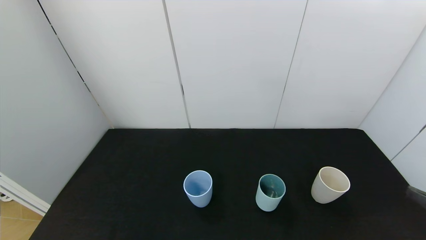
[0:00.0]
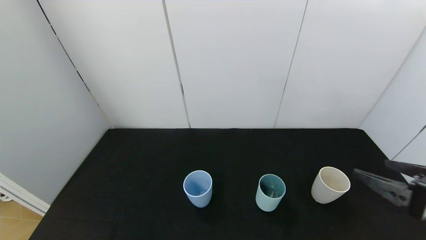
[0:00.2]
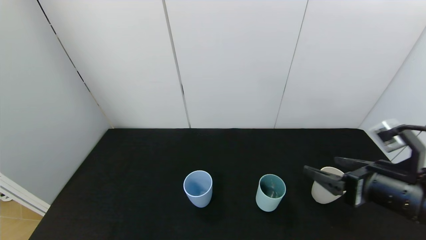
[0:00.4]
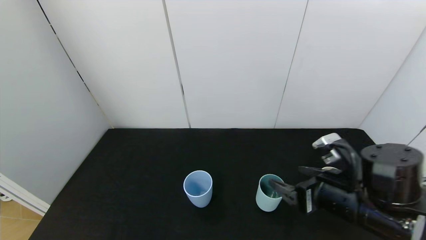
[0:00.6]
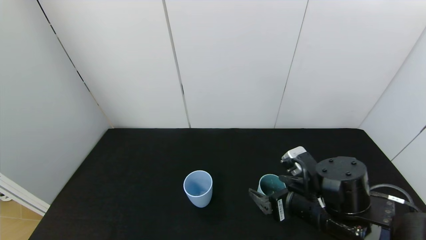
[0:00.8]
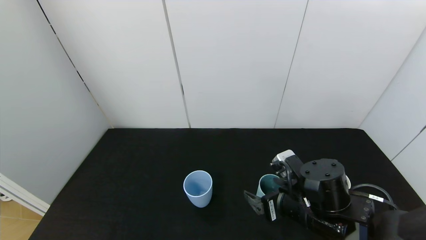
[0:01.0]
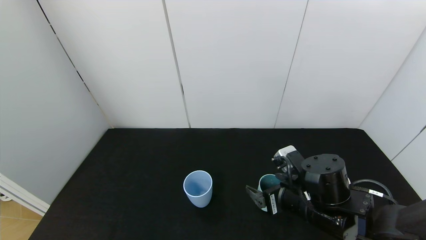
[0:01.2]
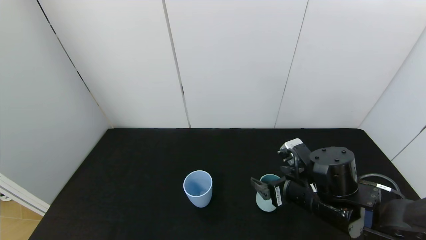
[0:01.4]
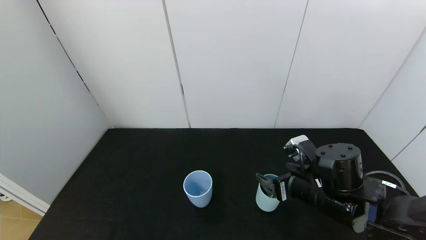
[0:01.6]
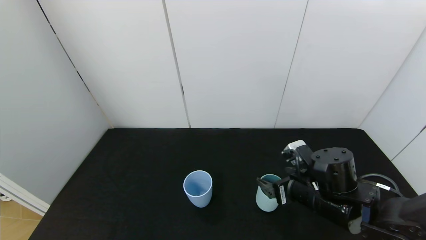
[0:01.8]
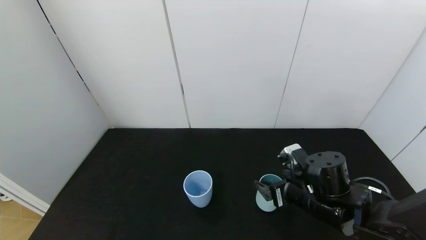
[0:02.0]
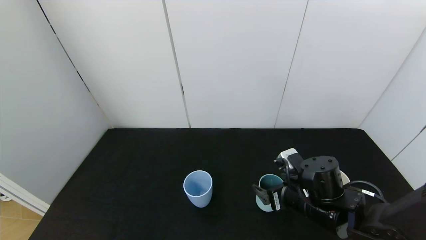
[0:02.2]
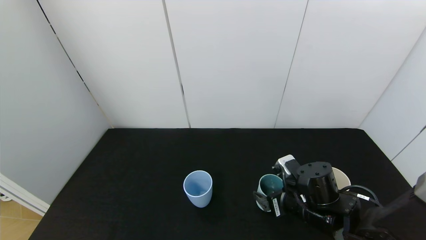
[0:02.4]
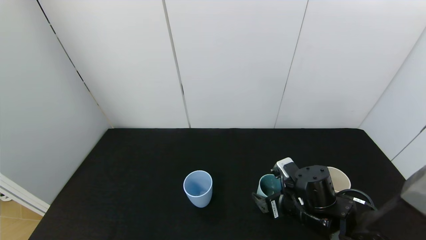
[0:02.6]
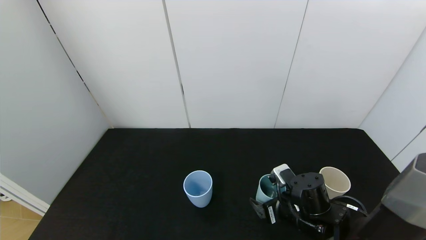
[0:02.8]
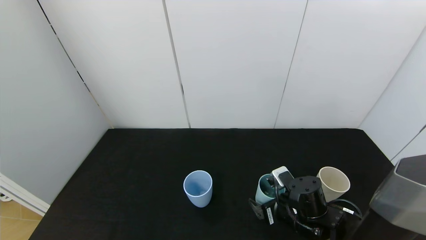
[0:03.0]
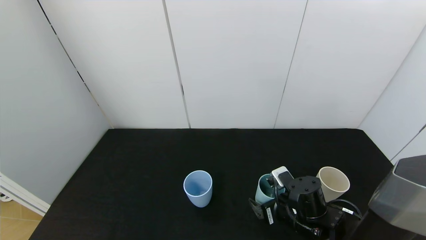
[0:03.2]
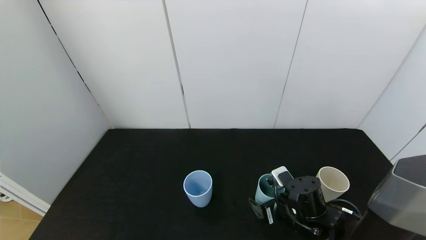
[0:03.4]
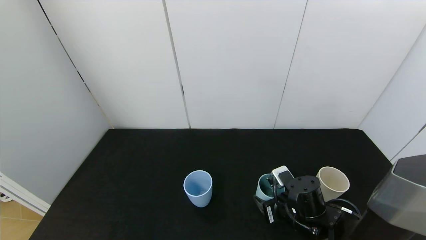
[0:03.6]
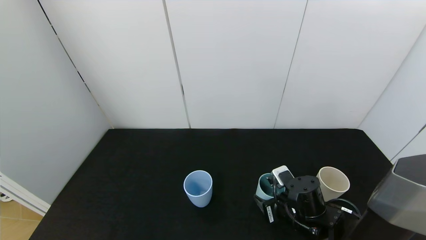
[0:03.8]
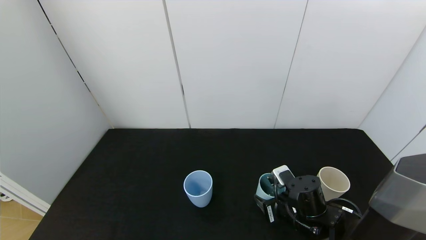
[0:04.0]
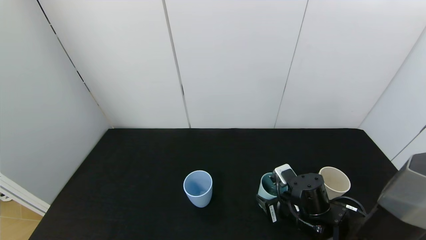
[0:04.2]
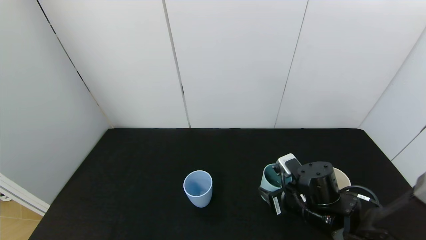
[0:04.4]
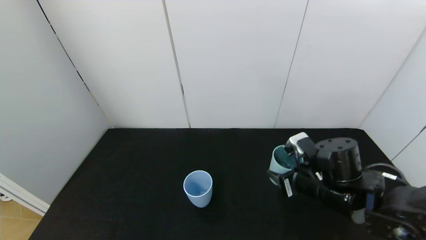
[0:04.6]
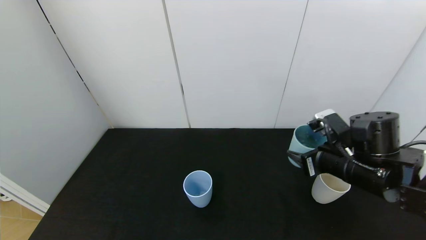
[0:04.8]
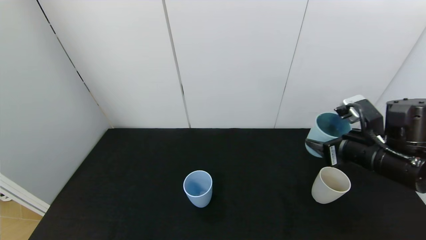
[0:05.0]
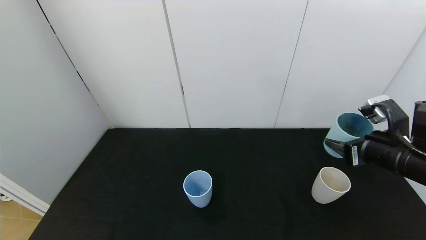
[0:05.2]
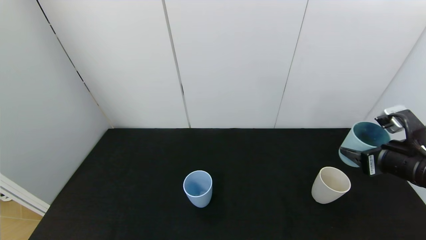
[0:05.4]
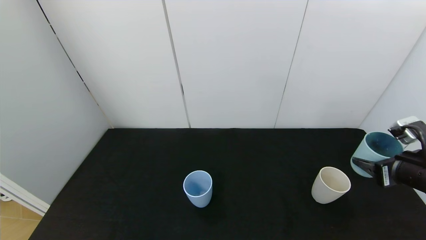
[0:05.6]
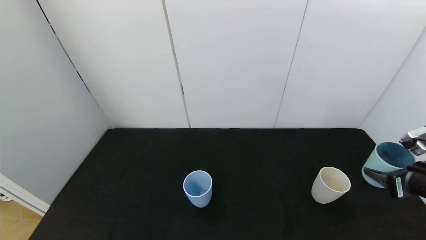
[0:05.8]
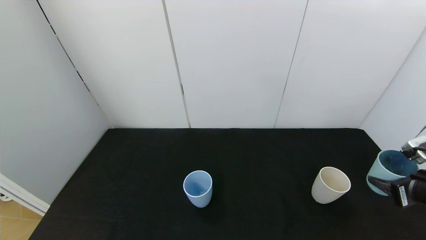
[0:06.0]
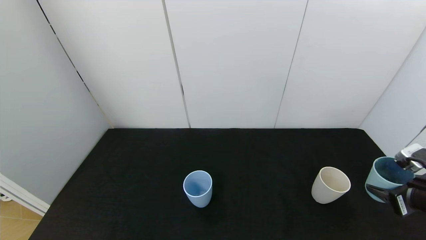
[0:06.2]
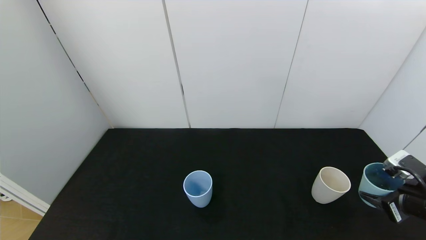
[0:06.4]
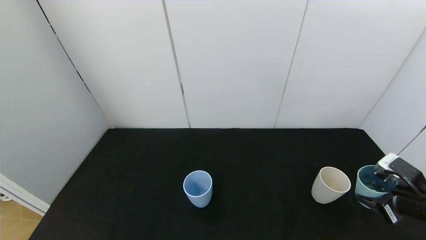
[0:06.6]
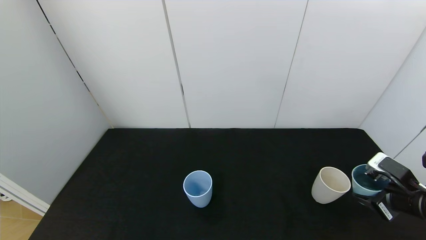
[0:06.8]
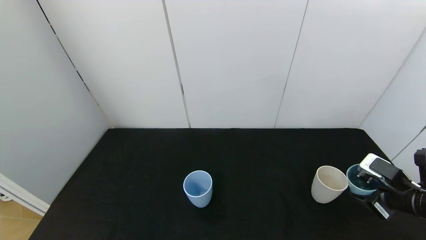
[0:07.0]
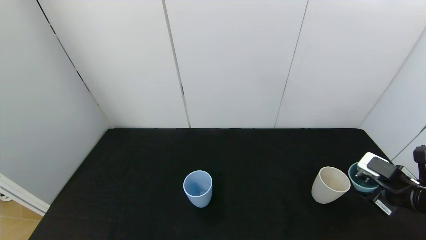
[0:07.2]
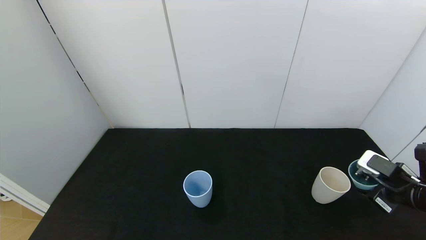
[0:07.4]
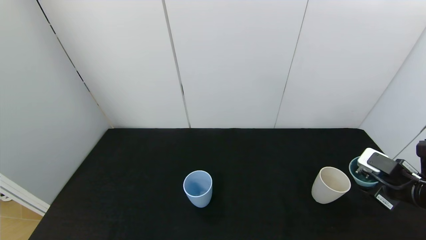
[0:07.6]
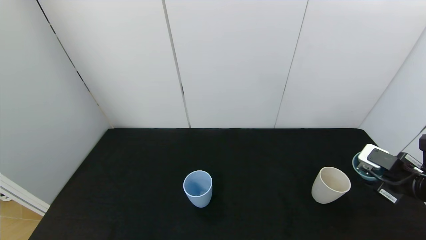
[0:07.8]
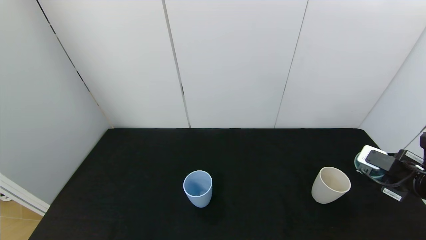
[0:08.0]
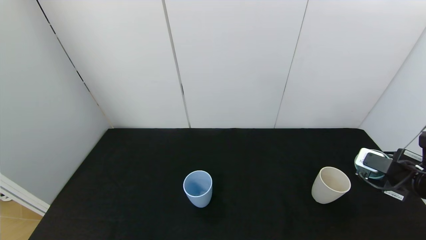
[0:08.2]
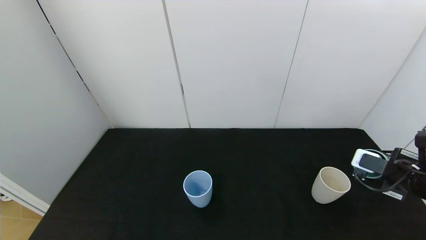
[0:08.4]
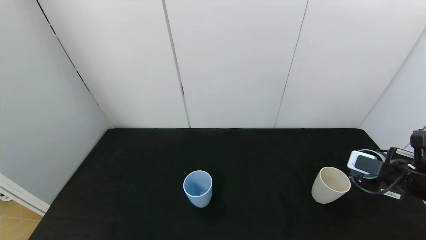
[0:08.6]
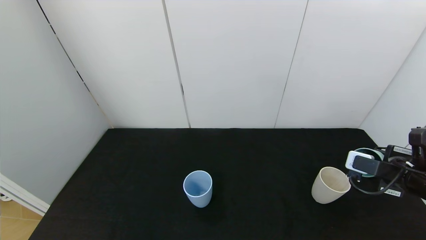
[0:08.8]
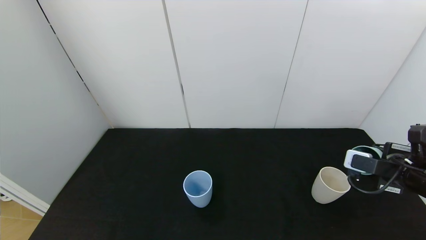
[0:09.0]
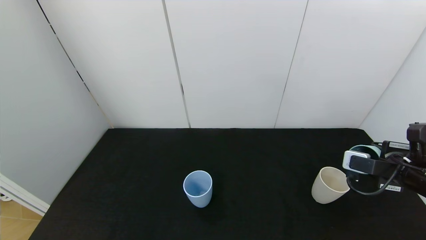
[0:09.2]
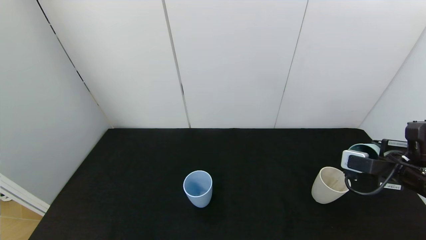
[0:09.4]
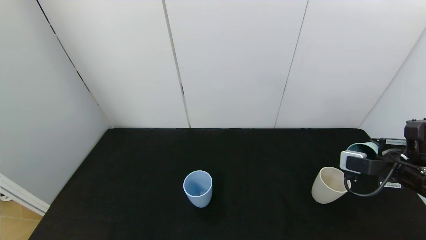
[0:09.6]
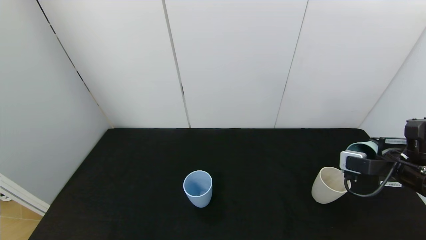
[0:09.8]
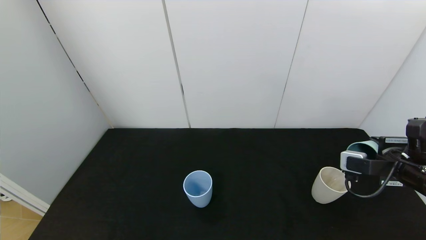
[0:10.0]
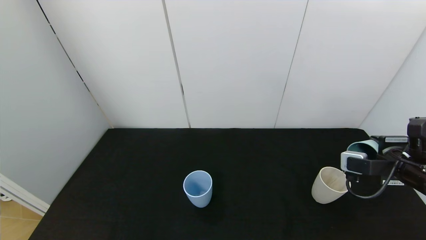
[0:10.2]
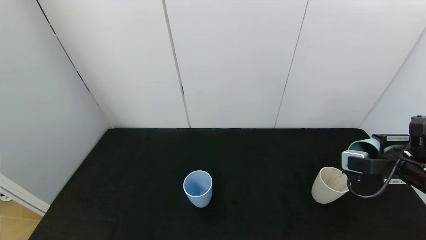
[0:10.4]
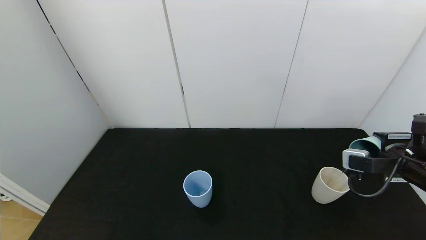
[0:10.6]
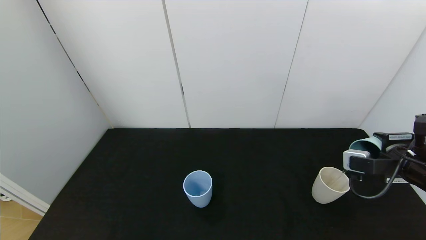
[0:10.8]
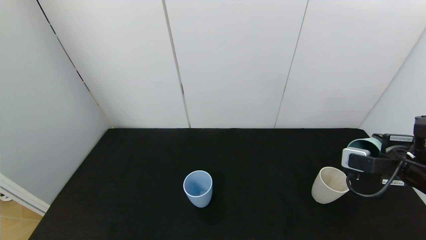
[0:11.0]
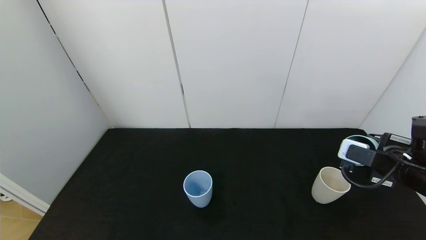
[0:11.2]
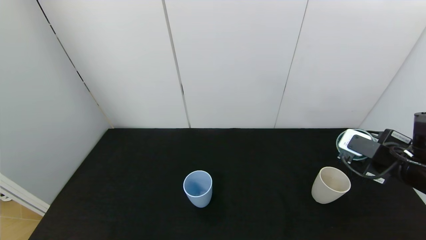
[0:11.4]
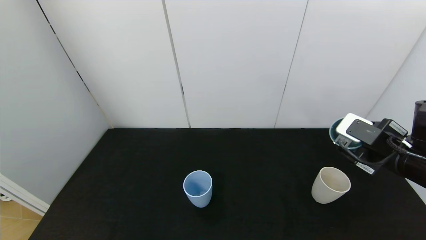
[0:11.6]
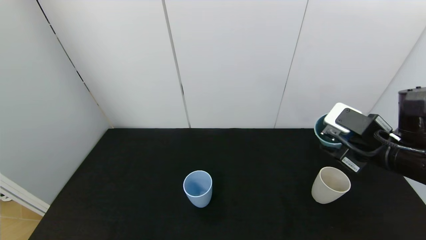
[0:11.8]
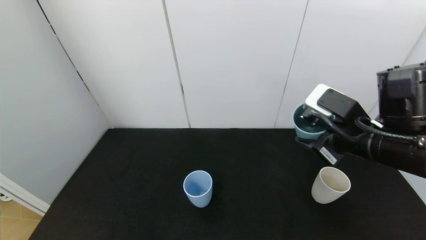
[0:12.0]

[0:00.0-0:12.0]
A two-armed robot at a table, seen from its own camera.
Task of the whole recording: use the gripper to pour the water into the other two cups on black table.
Step, 0:00.0 to 0:04.2: Grasp the green cup with the right gripper.
Step, 0:04.4 to 0:11.8: Pour water from green cup to white cup with the right gripper.
0:00.0 to 0:01.6: The right gripper is displaced to the left, forward and downward by about 25 cm.
0:01.6 to 0:03.0: The right gripper shifts some 10 cm downward.
0:03.0 to 0:04.4: The right gripper travels upward by roughly 5 cm, and closes.
0:04.4 to 0:06.0: The right gripper is displaced to the right by some 20 cm.
0:09.0 to 0:10.4: The grippers stay close to where they were, moving slightly.
0:10.4 to 0:12.0: The right gripper heads to the left and upward, covering some 15 cm.

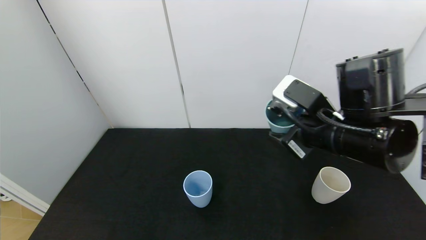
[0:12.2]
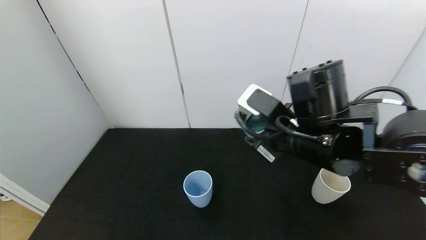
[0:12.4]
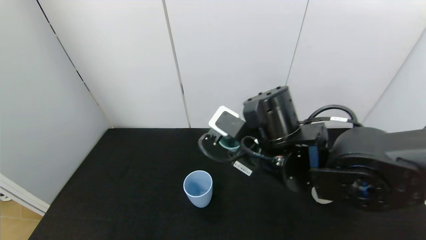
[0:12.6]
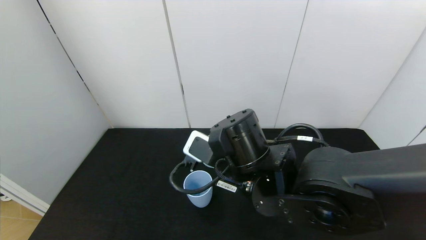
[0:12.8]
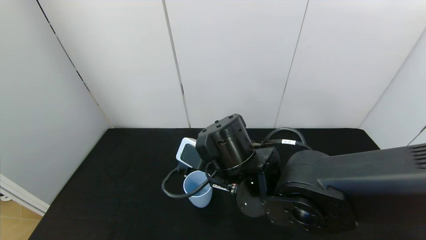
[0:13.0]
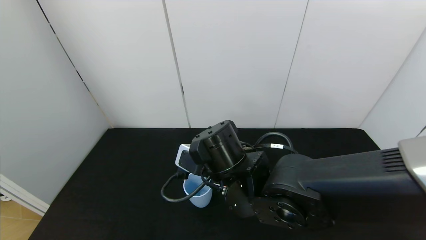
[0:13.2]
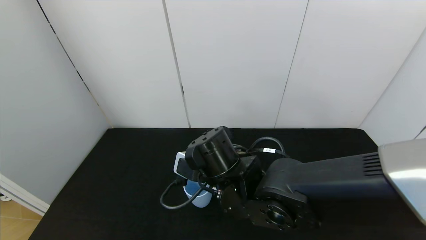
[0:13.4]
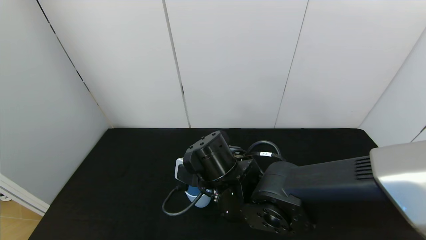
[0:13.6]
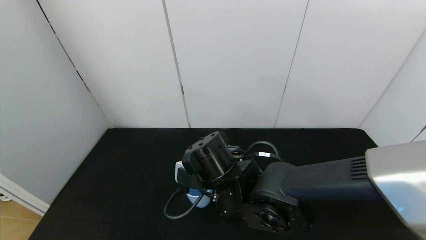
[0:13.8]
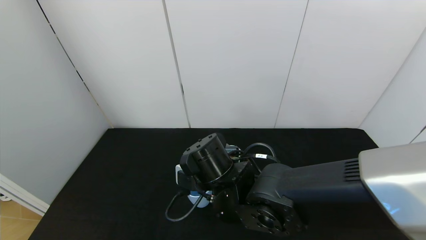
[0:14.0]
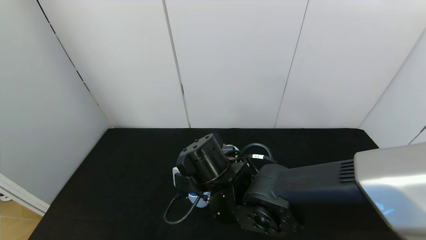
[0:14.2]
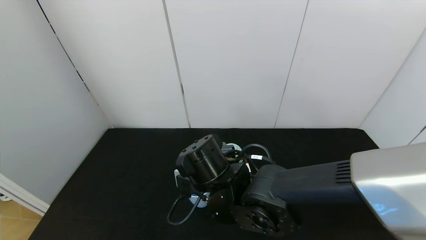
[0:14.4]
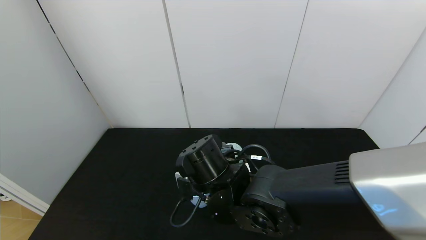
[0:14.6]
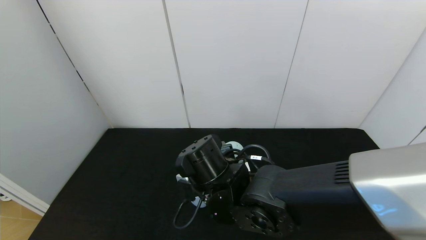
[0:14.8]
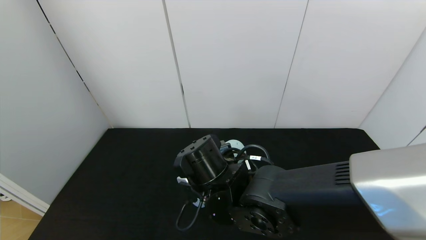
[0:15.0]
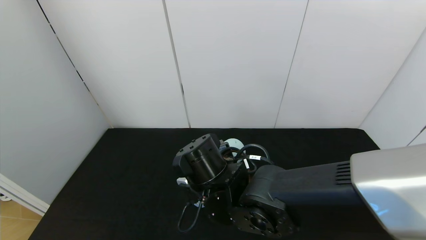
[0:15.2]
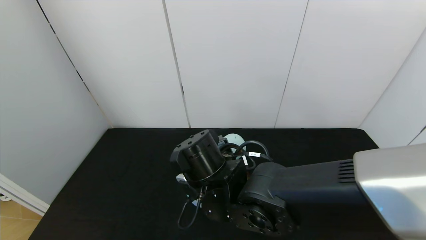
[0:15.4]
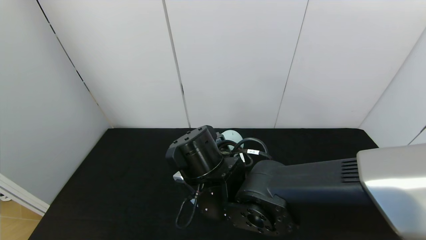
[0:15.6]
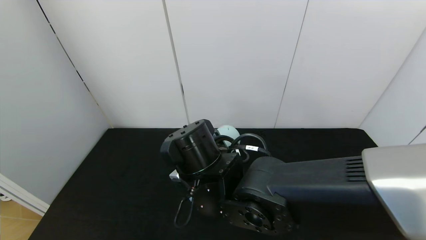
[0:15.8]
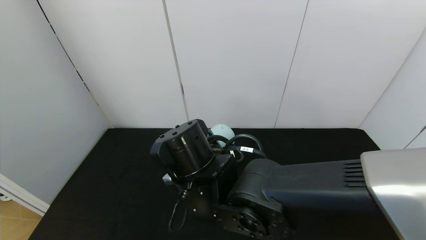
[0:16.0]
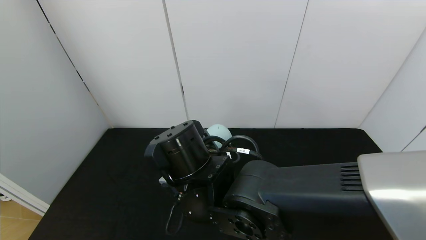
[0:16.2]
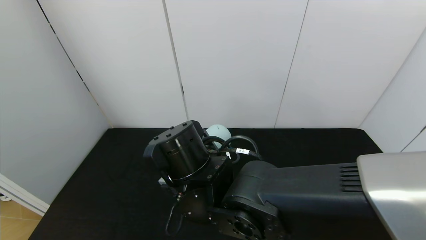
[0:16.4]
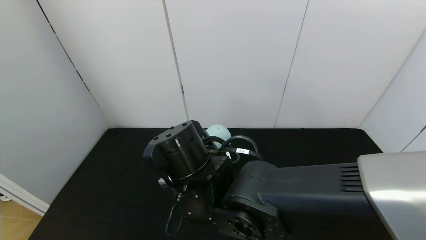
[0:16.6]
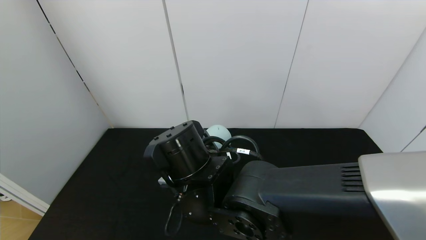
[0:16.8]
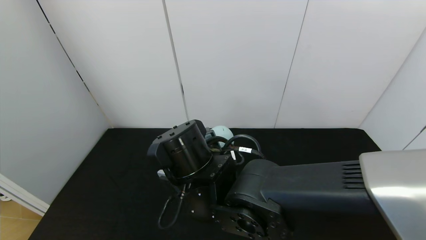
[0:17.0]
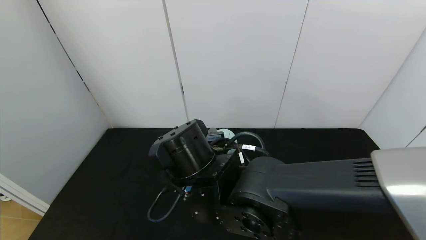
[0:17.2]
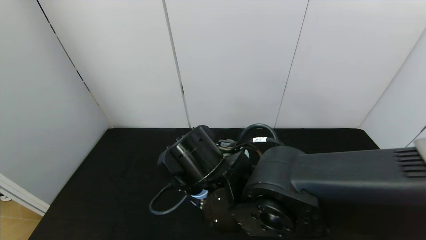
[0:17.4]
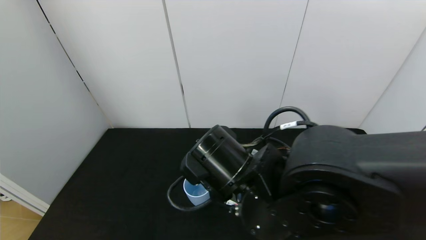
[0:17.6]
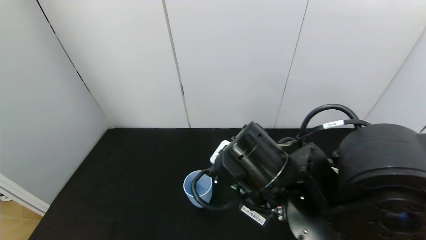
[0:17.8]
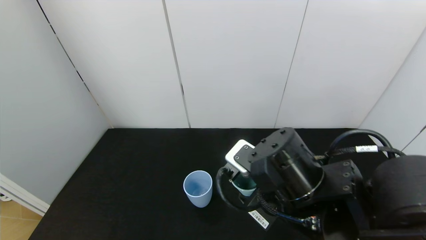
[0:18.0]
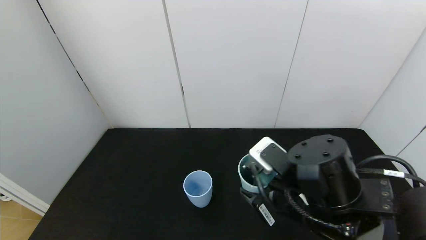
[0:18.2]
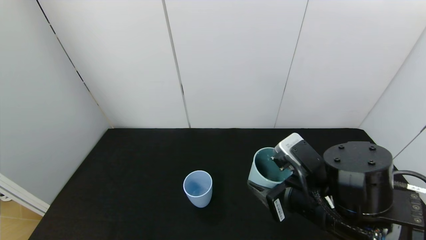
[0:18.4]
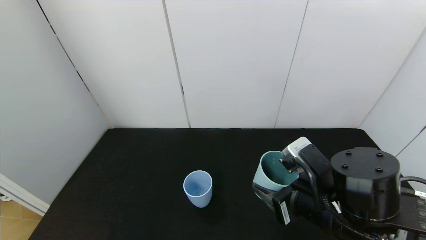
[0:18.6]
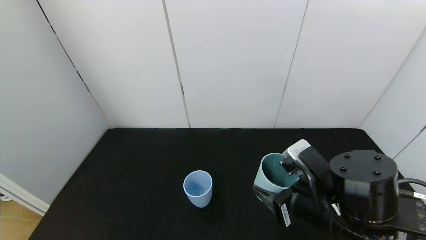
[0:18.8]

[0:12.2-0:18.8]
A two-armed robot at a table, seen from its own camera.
Task of the whole recording: use the gripper to pour the water into the other two cups on black table.
Step, 0:12.2 to 0:17.8: Pour water from green cup to blue cup with the right gripper.
0:12.2 to 0:13.8: The right gripper moves to the left and downward, about 20 cm.
0:15.4 to 0:17.2: The grippers make only small movements.
0:17.2 to 0:18.8: The right gripper heads to the right, covering some 20 cm.
